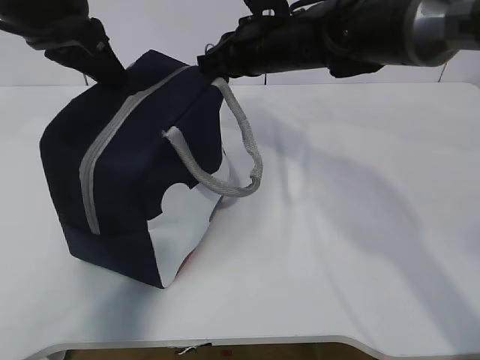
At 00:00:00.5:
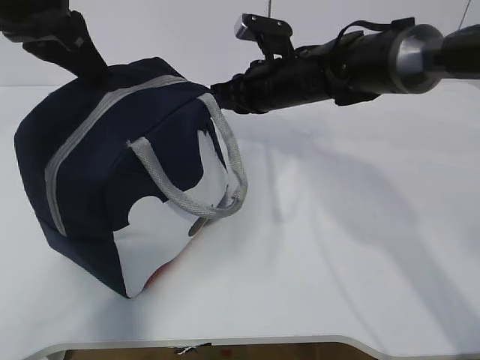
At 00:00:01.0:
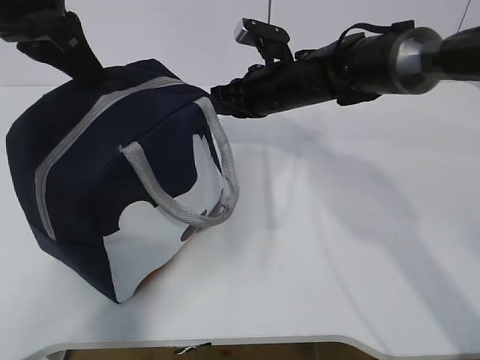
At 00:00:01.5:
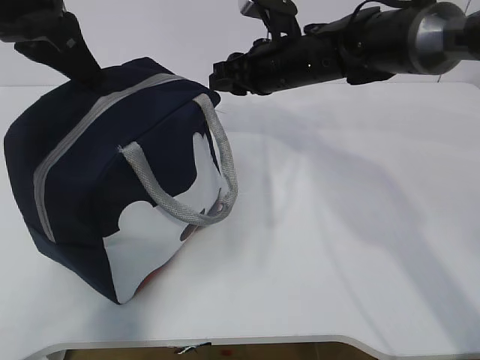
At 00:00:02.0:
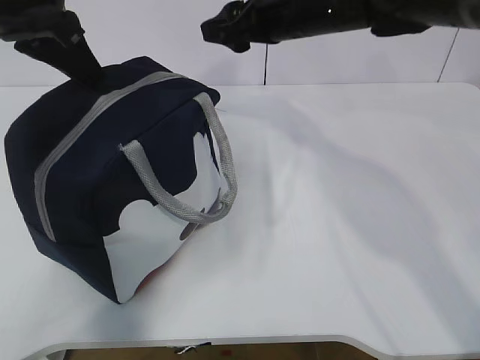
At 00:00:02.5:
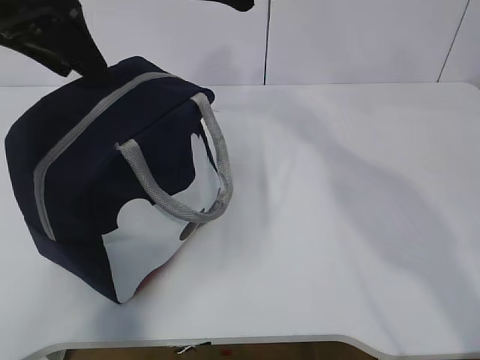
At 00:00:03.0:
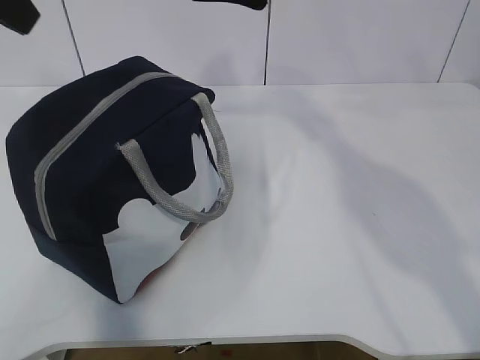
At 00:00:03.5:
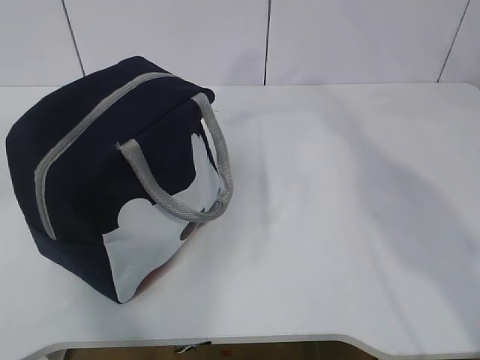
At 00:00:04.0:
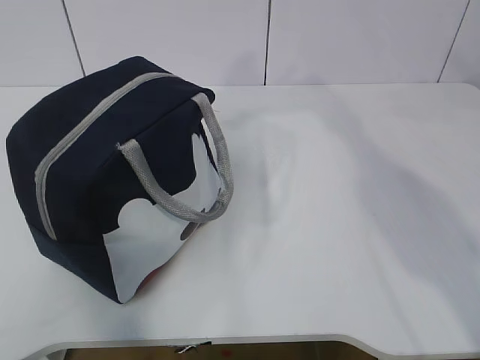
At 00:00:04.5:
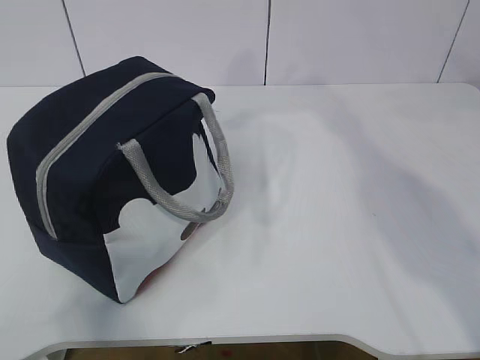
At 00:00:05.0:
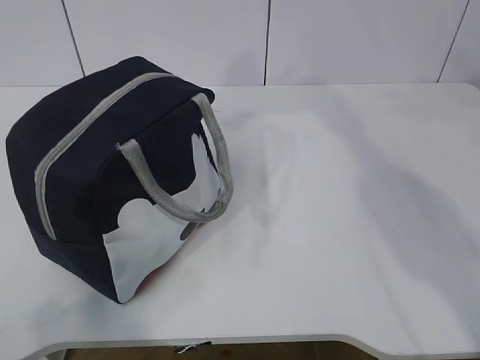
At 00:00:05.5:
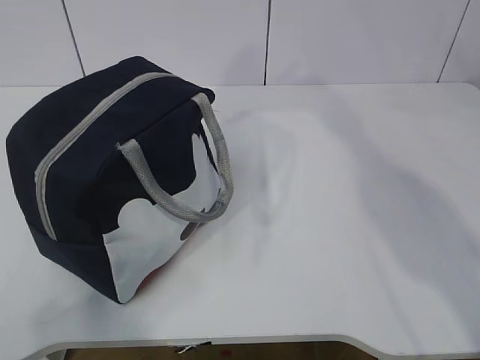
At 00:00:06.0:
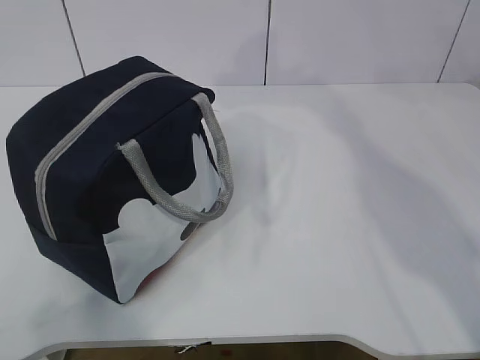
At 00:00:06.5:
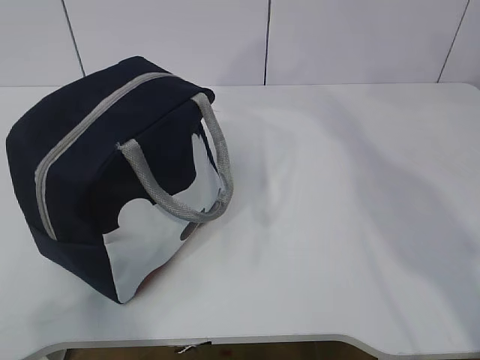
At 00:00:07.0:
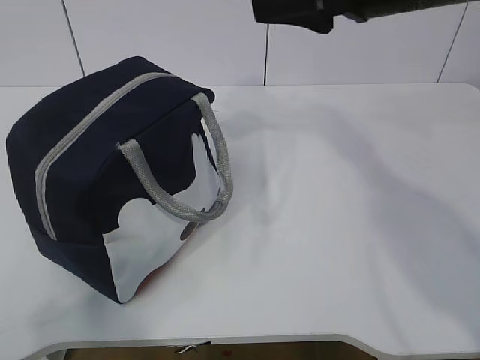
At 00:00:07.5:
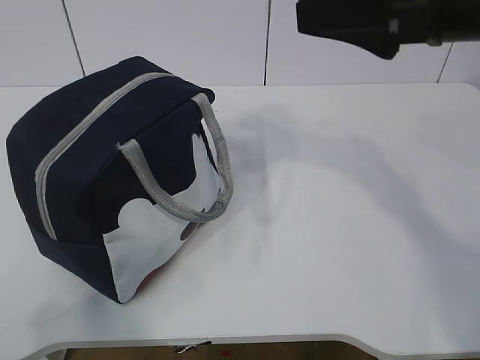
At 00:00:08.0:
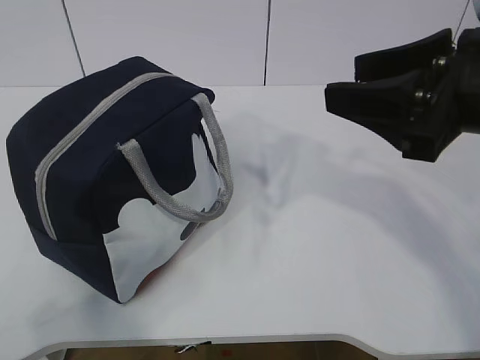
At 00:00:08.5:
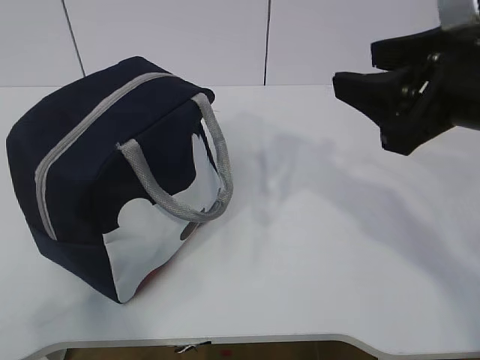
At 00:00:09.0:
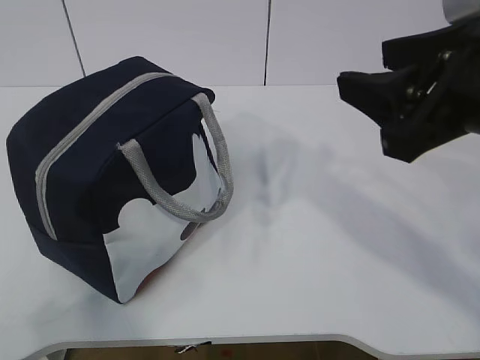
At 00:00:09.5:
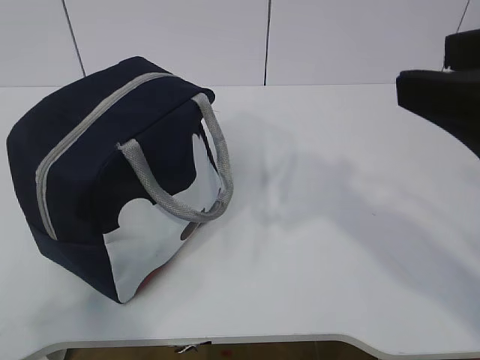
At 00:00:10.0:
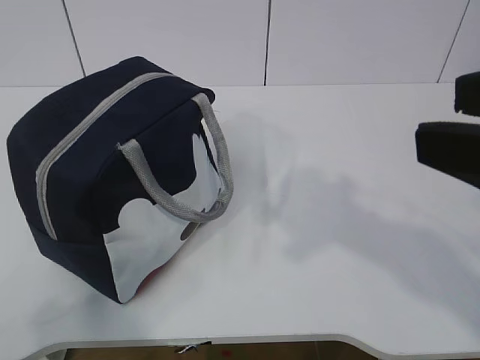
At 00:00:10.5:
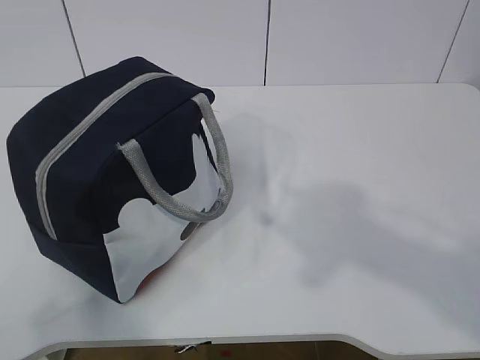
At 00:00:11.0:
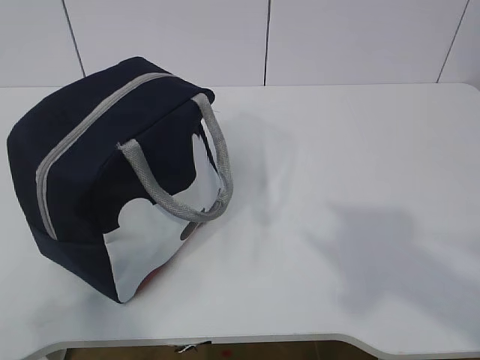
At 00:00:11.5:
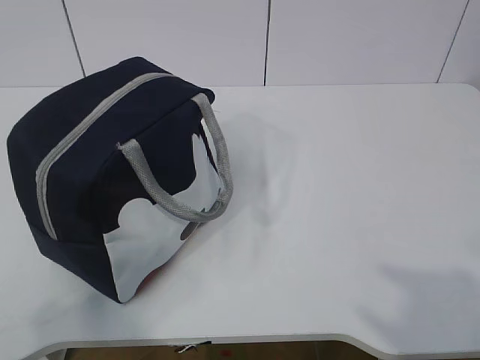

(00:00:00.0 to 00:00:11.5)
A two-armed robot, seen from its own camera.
00:00:00.0 - 00:00:02.0: The right gripper opens up.
00:00:02.0 - 00:00:04.0: The right gripper shifts some 15 cm upward, backward and to the right, while the left gripper shifts about 30 cm backward, and opens up.
00:00:06.0 - 00:00:07.5: The right gripper heads backward, covering about 15 cm.
00:00:07.5 - 00:00:09.5: The right gripper shifts some 10 cm backward.
00:00:09.5 - 00:00:11.5: The right gripper travels backward and to the right by some 20 cm.

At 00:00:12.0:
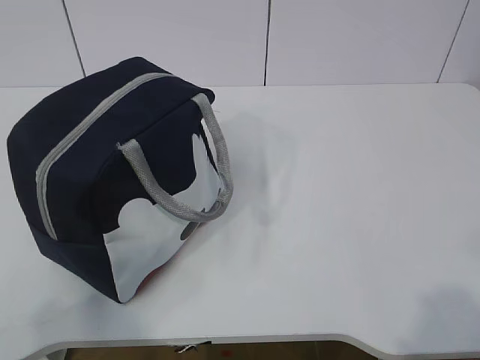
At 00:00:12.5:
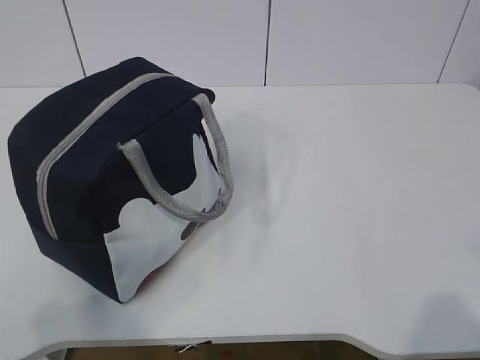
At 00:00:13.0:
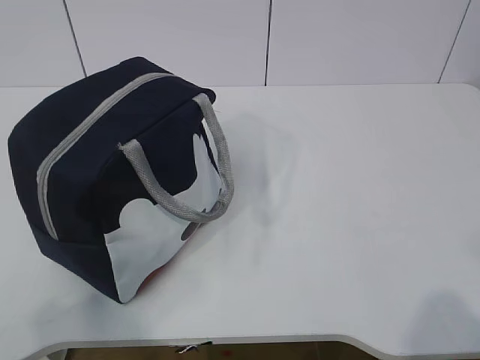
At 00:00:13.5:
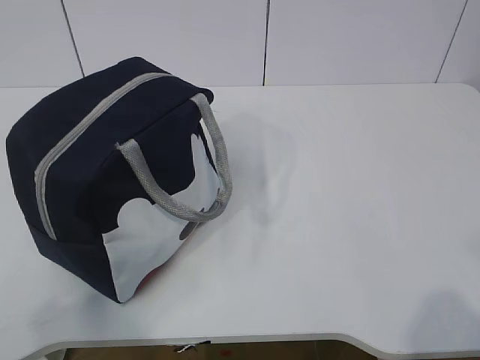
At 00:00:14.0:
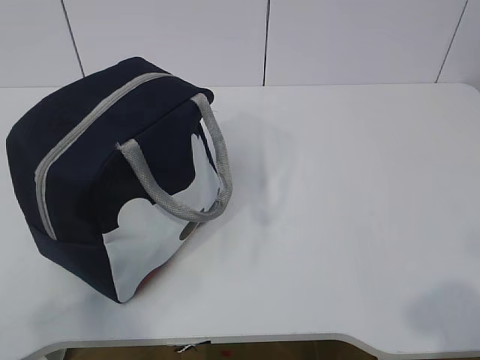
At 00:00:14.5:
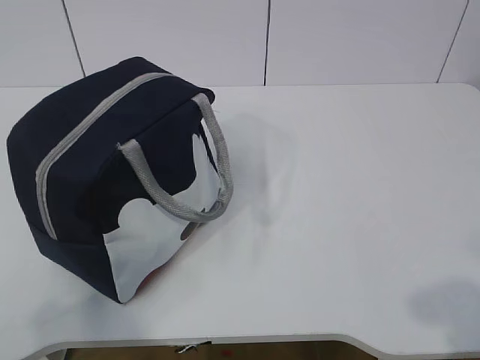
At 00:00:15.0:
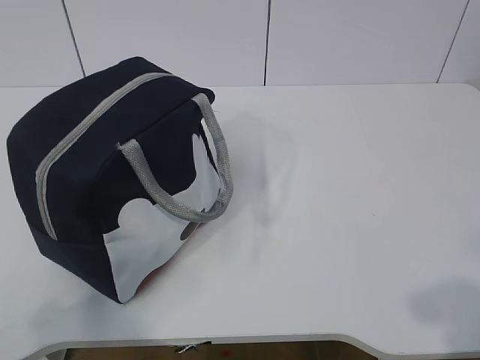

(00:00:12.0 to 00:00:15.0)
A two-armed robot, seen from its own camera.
00:00:12.0 - 00:00:13.5: The grippers move only a little.
